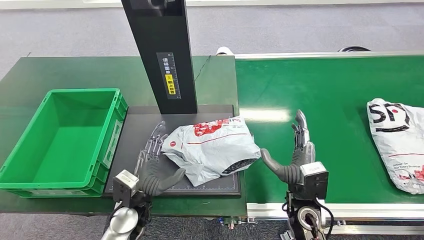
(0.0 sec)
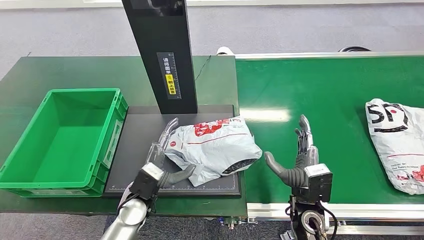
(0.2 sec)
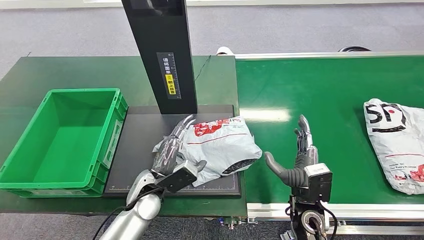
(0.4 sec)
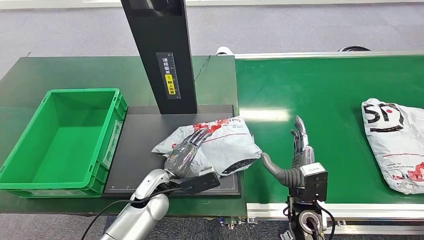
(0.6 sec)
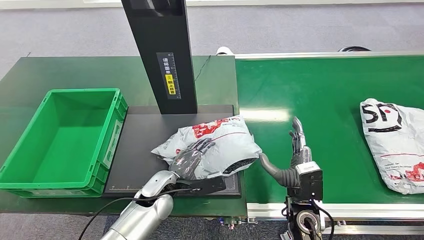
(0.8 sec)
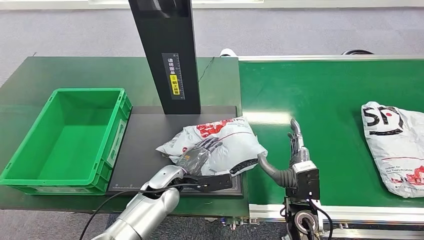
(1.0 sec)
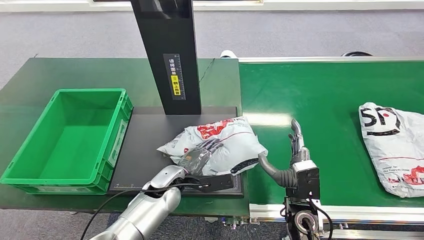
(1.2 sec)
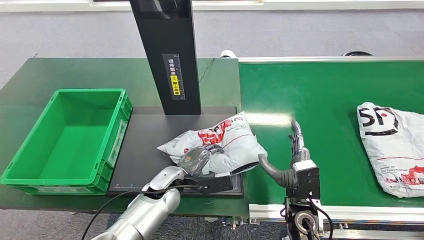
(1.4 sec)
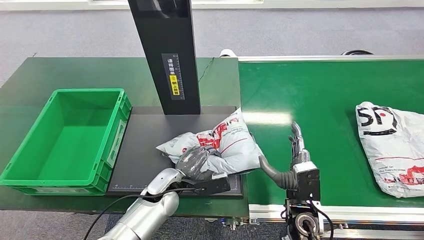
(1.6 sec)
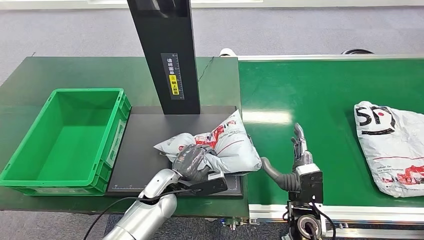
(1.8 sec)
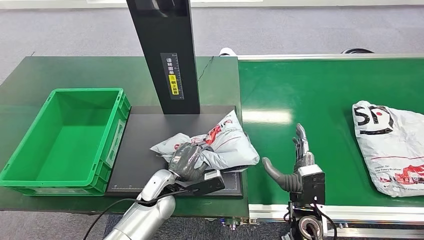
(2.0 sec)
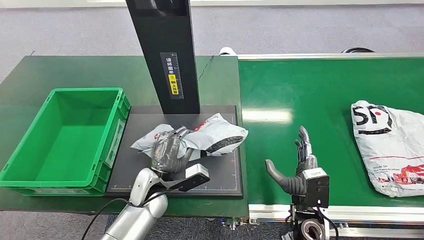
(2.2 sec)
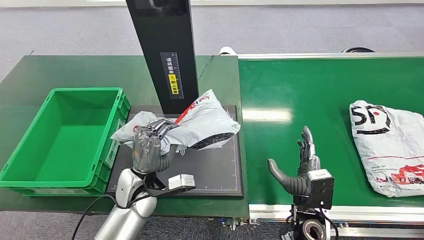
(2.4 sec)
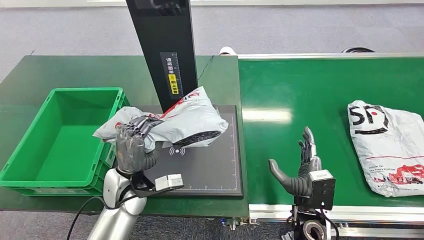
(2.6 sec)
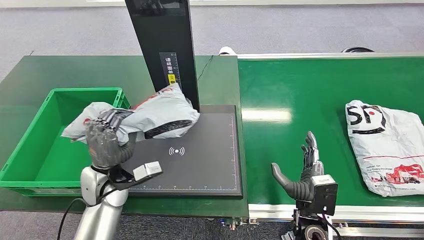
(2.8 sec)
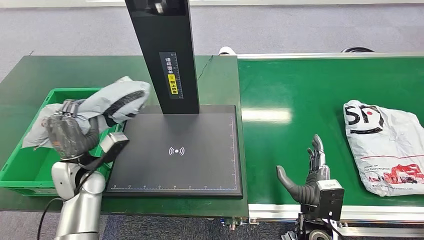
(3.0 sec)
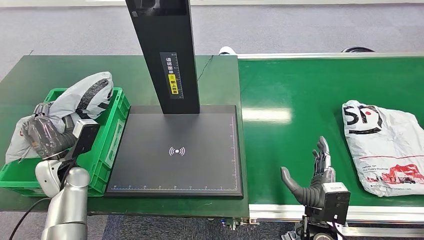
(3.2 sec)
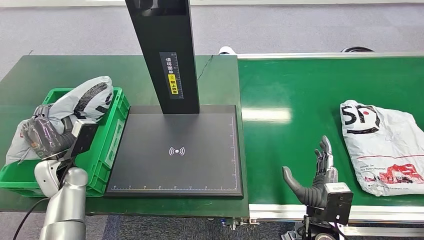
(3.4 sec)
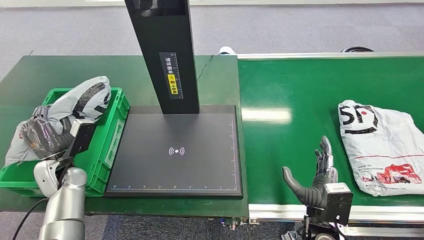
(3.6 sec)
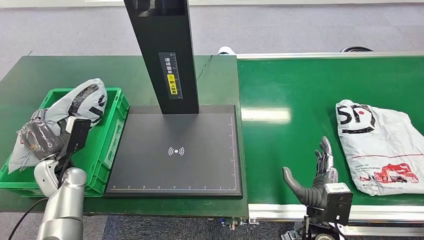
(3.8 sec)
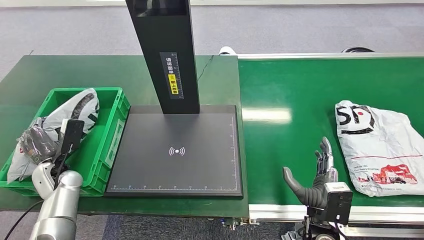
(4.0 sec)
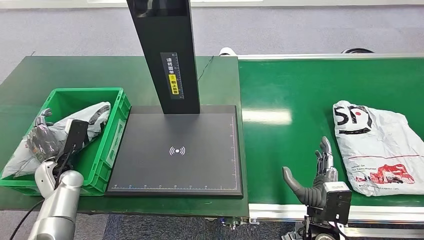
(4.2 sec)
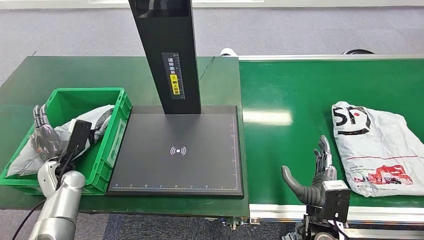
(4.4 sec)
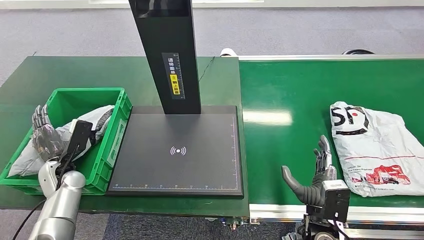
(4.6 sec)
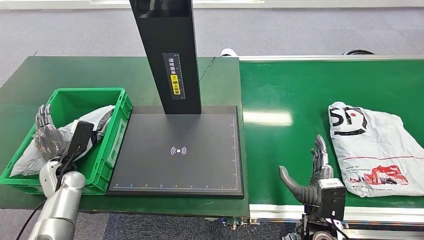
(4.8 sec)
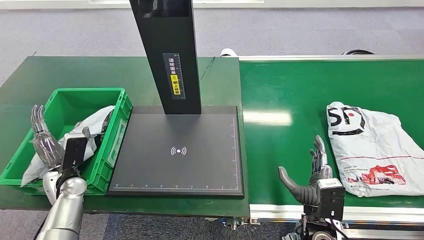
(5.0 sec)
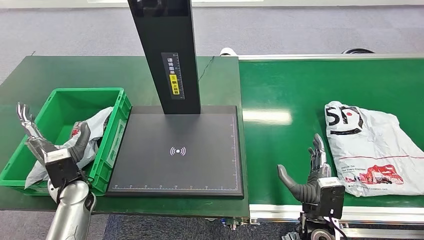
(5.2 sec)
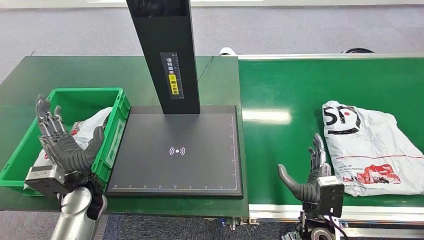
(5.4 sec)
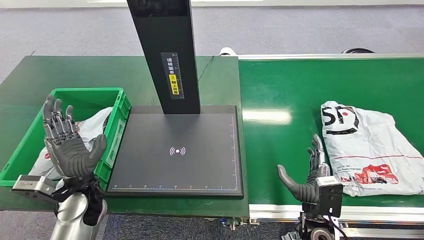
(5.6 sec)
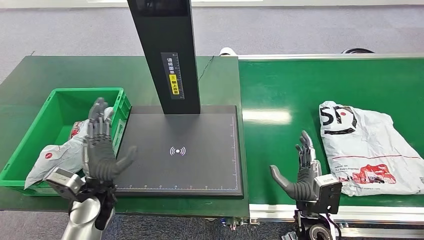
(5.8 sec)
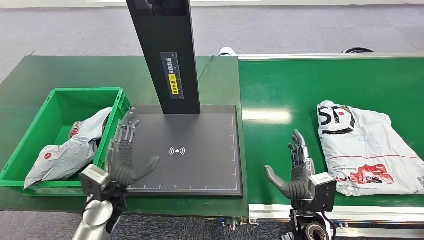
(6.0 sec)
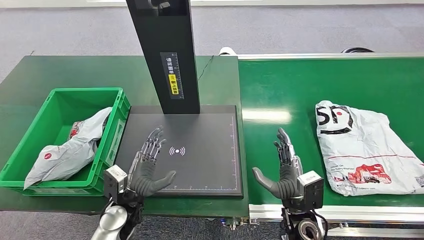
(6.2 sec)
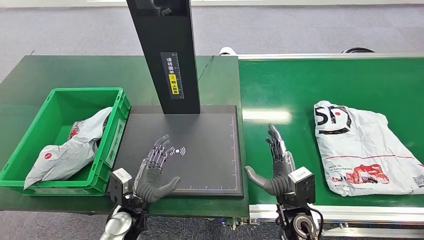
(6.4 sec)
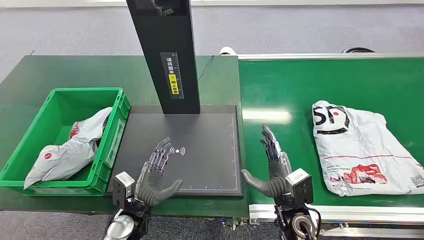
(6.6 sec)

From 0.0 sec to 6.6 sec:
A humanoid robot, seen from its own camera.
Step, from 0.0 sec to 2.8 sec: Pick up the package from the inbound machine.
Step, from 3.0 sec to 6.4 sec: Place the package into the parcel locker.
